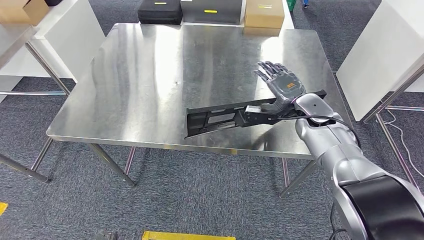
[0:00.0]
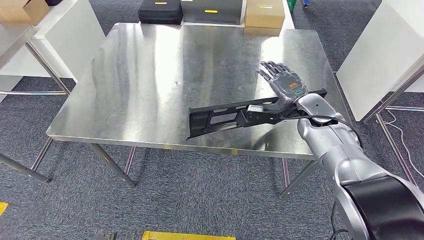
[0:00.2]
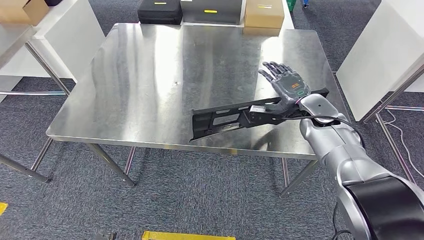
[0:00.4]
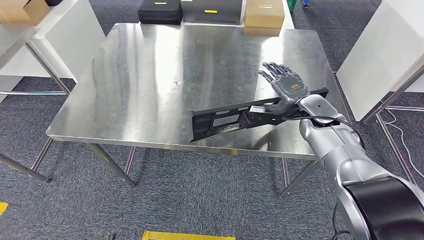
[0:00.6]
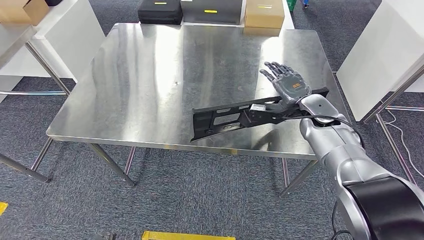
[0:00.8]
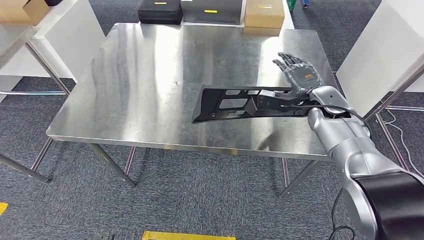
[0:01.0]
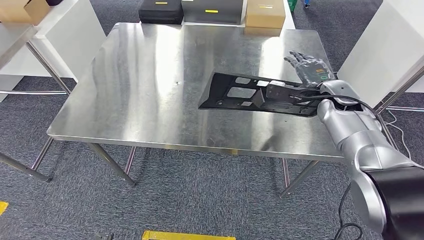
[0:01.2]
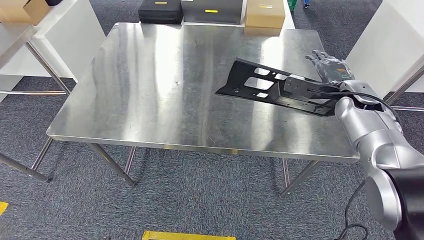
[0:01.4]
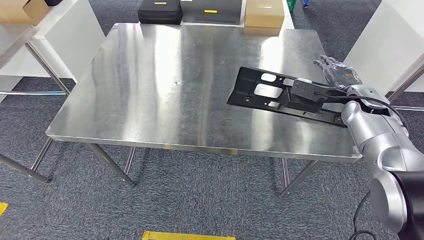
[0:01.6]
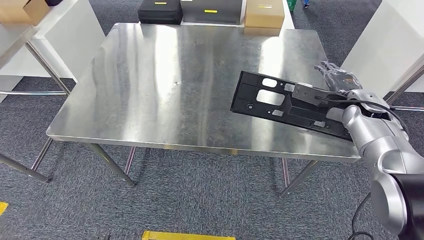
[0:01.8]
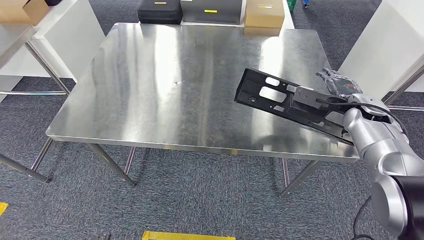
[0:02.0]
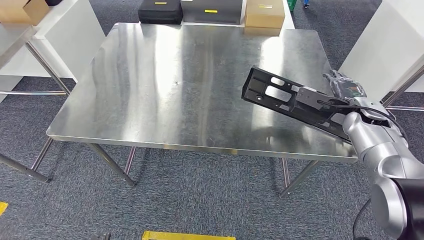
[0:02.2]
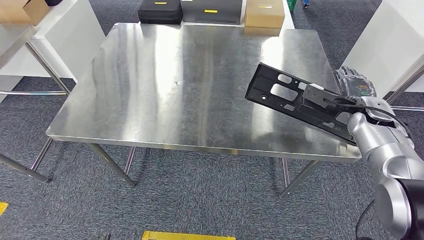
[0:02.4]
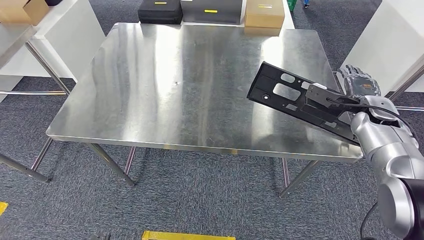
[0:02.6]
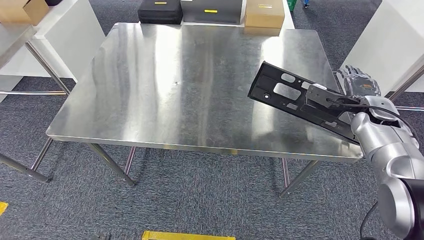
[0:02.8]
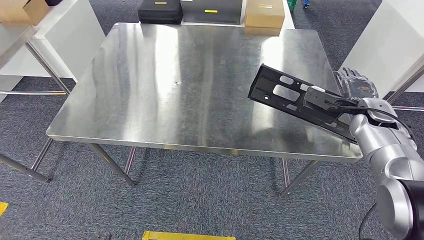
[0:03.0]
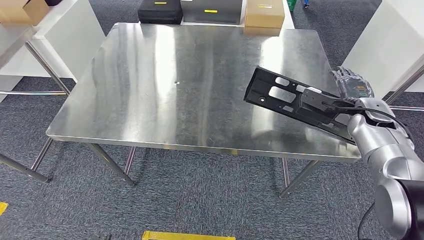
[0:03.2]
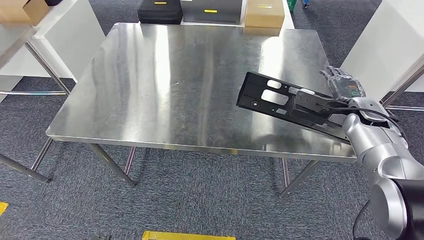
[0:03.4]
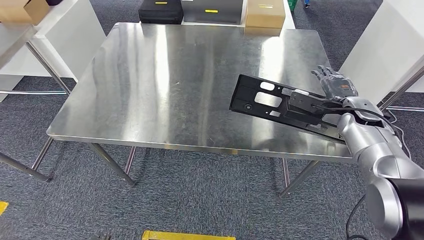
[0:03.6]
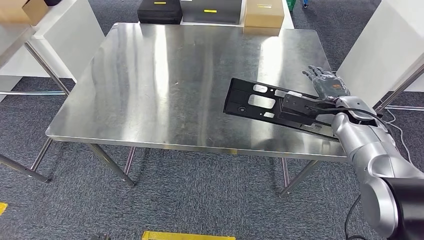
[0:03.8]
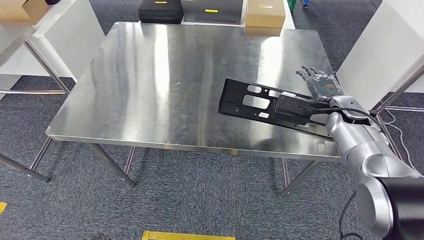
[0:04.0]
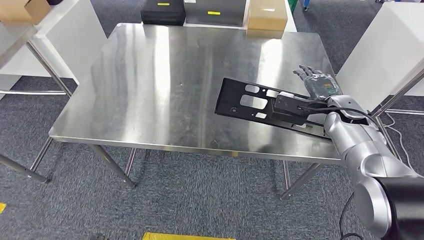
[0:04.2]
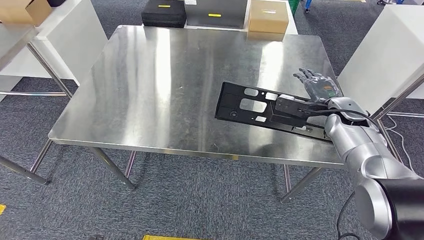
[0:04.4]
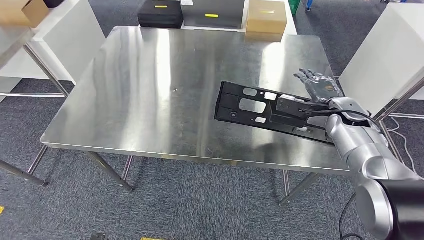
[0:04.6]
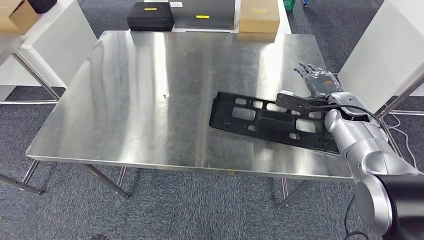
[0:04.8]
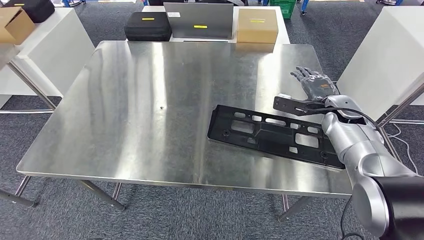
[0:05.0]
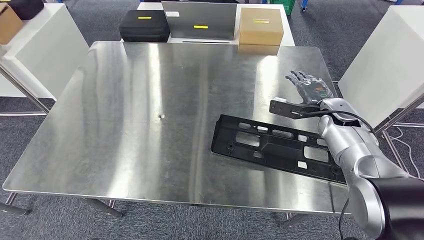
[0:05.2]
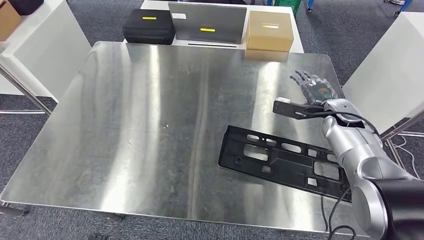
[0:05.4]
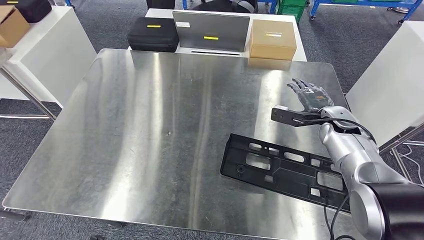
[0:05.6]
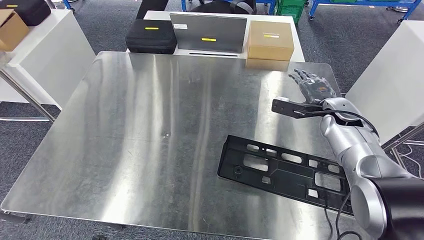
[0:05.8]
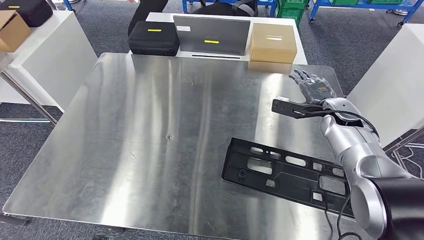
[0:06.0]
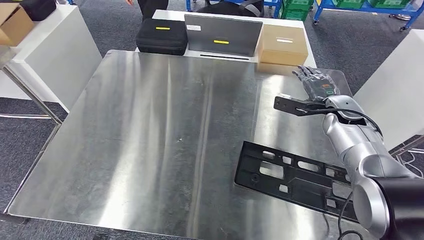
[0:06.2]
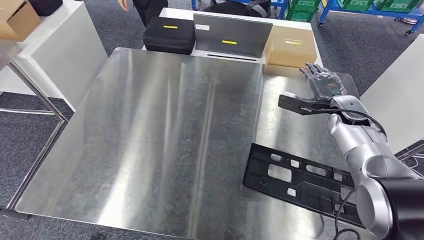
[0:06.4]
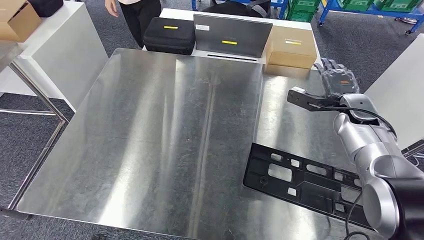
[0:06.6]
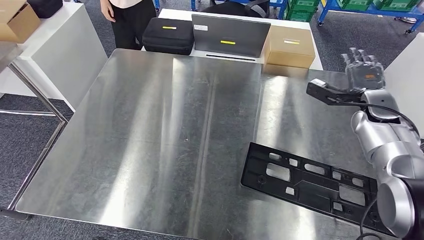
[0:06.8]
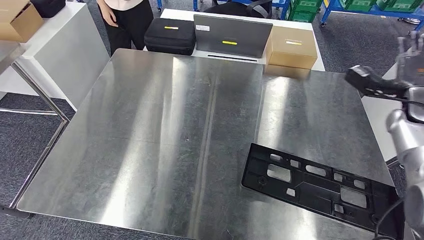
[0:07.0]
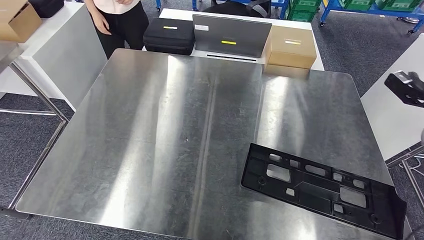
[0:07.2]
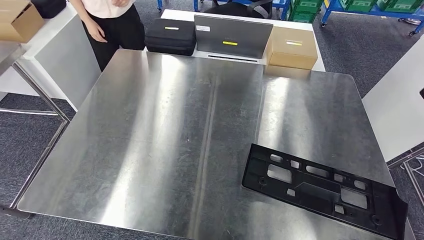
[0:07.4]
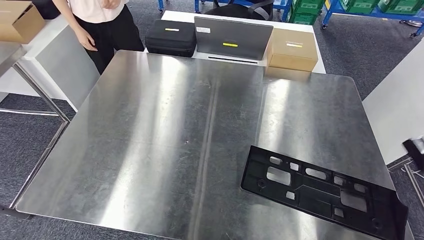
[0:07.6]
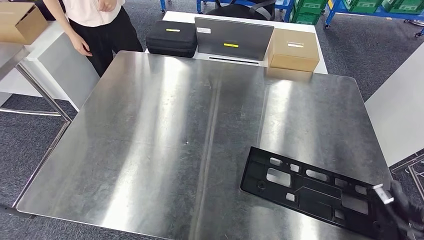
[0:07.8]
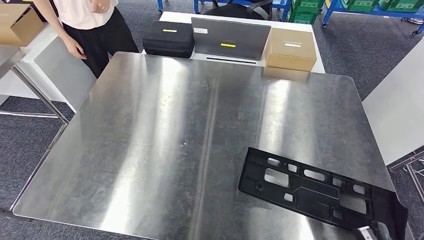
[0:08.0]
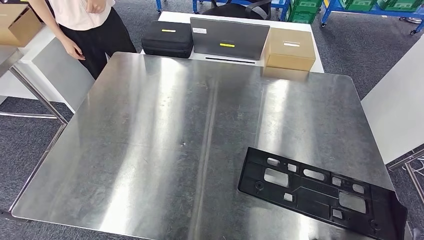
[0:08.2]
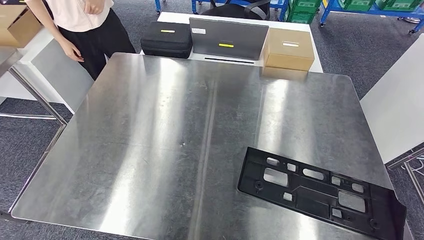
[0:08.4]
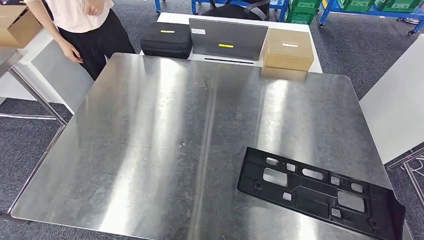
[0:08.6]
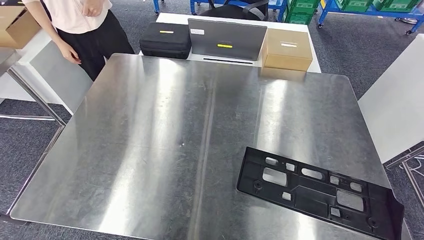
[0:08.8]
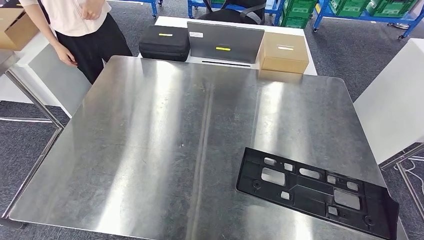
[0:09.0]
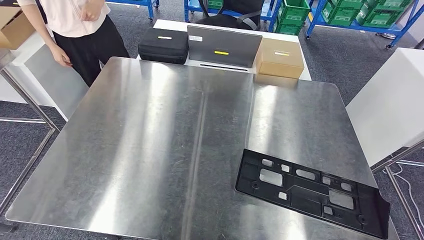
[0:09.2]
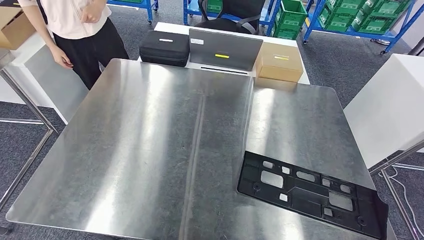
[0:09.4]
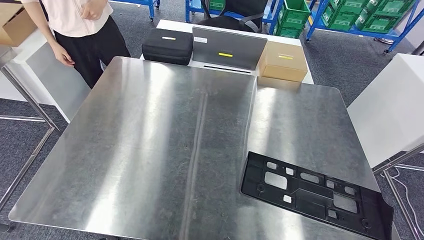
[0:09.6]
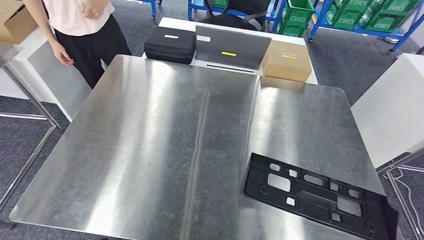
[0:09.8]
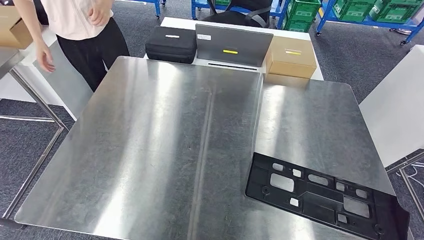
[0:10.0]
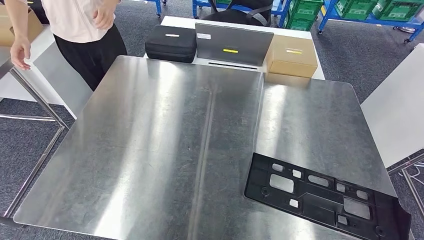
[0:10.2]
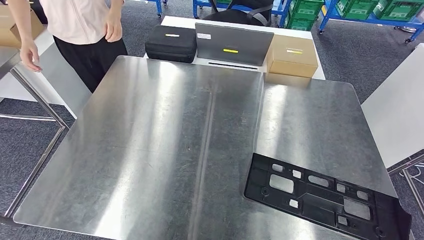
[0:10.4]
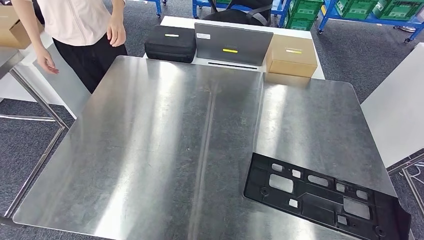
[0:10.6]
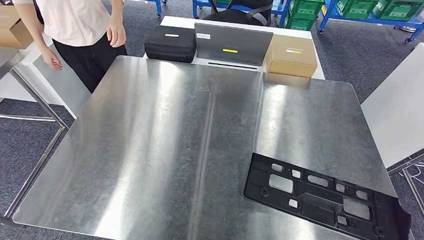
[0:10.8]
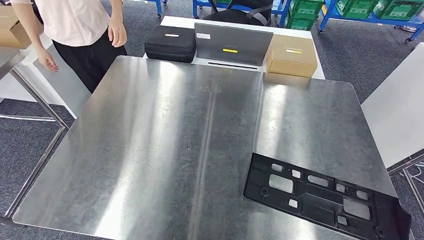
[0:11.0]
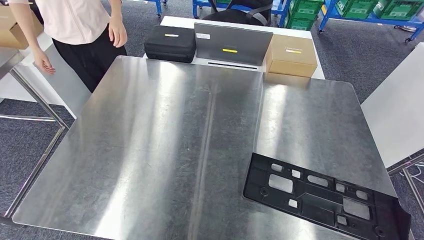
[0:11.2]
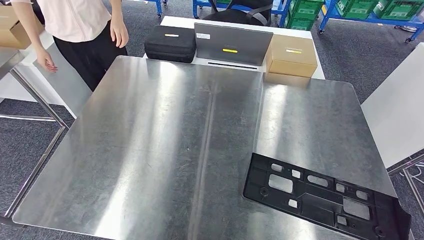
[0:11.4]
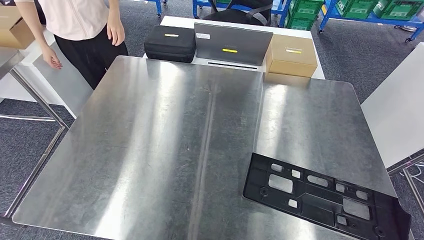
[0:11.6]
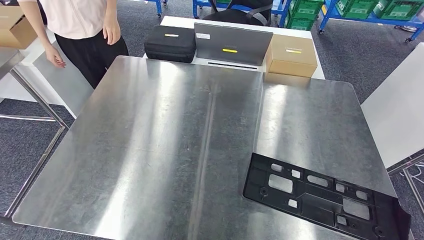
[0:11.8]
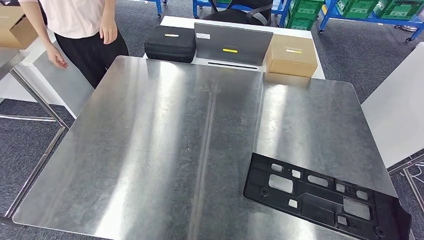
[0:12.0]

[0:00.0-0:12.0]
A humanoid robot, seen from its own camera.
Step, 0:00.0 to 0:06.2: Insert the large material into the corresponding slot on the workbench.
0:00.0 to 0:01.6: The right hand moves to the right, about 10 cm.
0:01.6 to 0:03.0: There are only small adjustments of the hands.
0:10.4 to 0:12.0: The right hand is displaced to the left by about 10 cm.

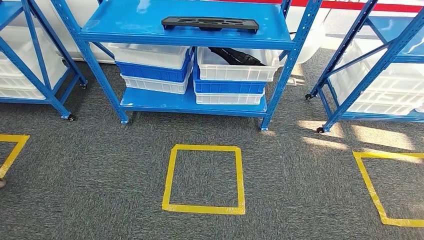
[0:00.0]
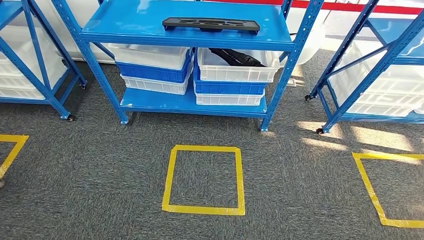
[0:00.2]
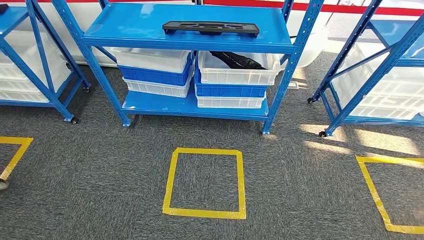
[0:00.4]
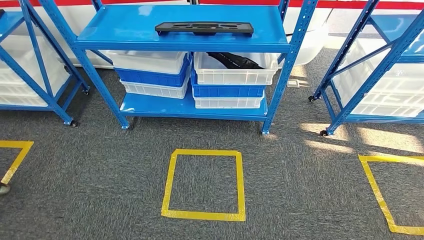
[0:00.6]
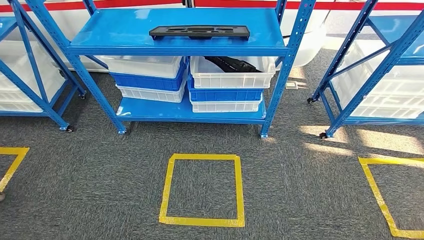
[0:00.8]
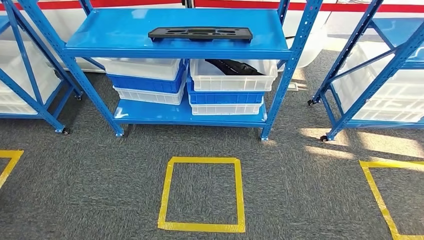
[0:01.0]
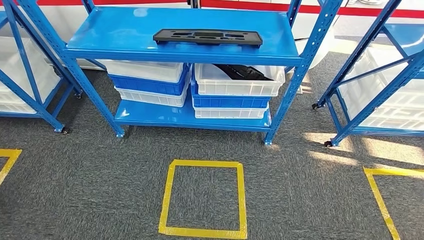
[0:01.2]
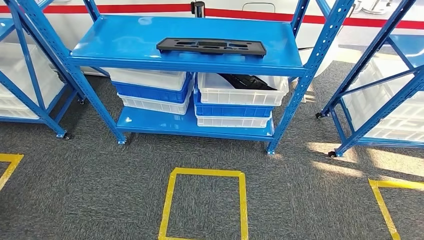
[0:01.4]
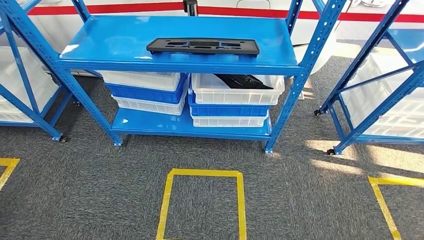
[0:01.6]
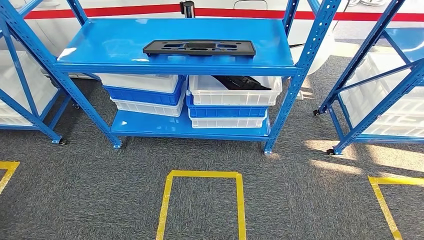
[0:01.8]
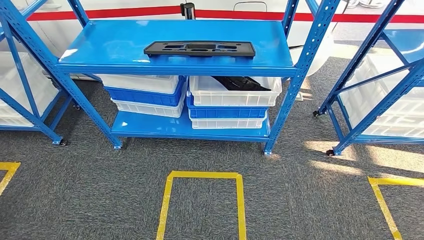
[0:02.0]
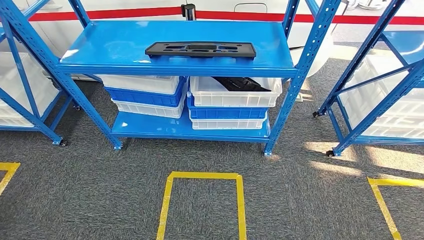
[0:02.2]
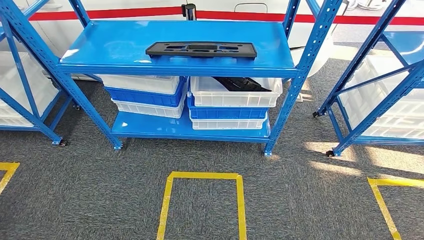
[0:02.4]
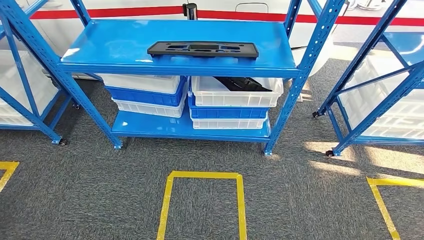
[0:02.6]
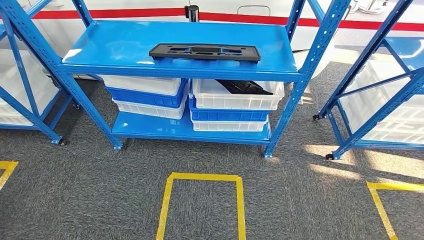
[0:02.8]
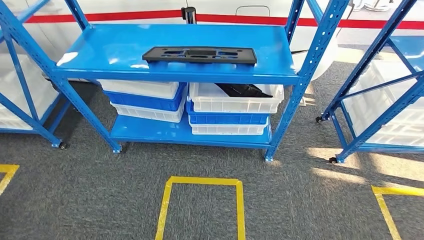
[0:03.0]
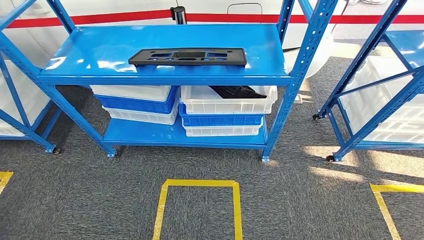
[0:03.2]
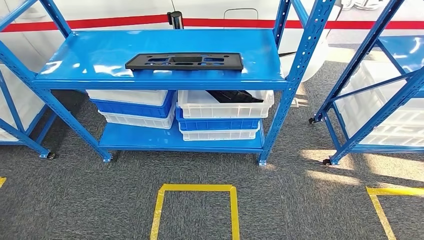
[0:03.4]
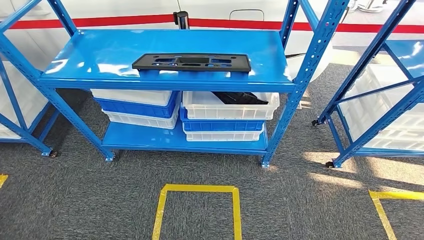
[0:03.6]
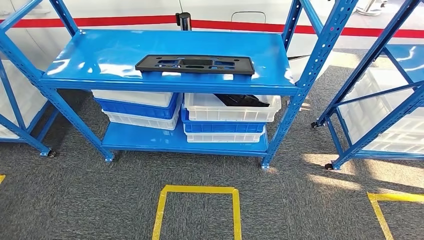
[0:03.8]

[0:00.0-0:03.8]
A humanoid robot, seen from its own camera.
Step, 0:00.0 to 0:03.8: Move to the initial position of the shelf.
